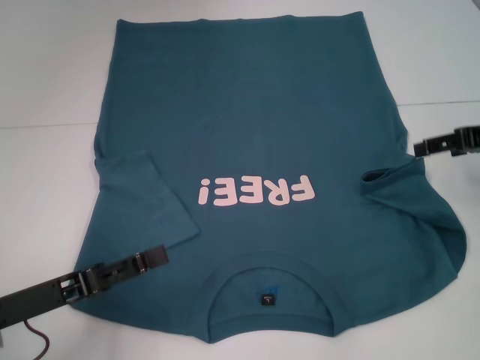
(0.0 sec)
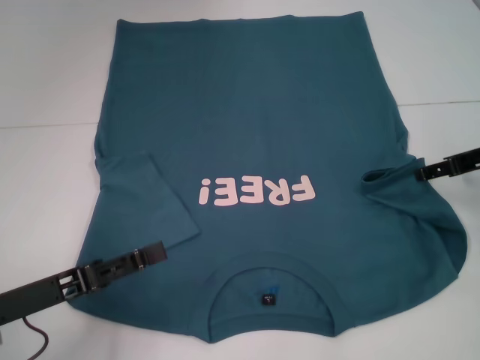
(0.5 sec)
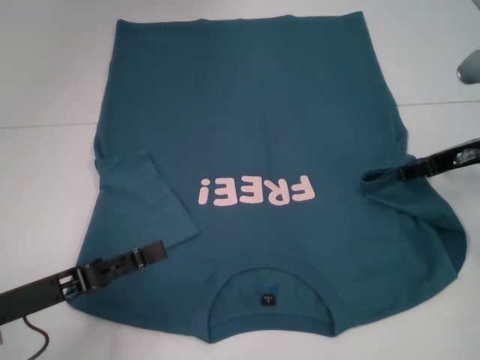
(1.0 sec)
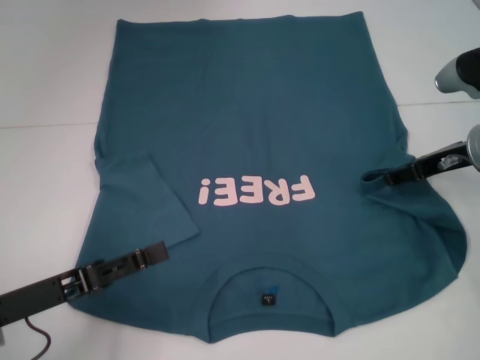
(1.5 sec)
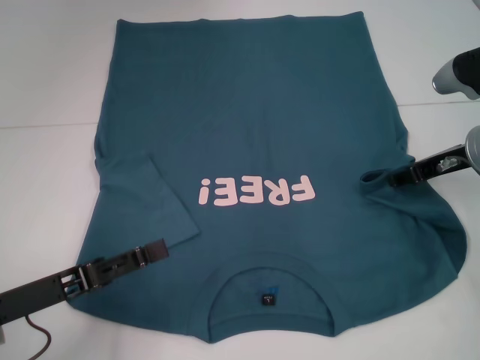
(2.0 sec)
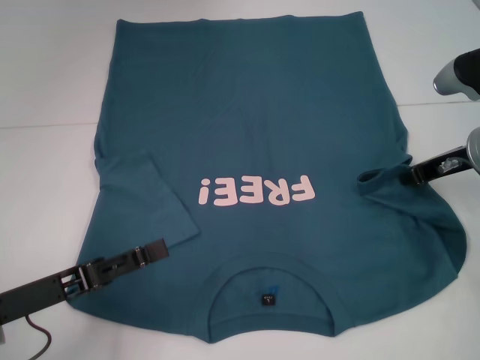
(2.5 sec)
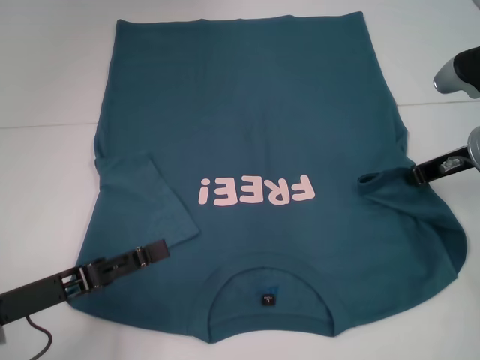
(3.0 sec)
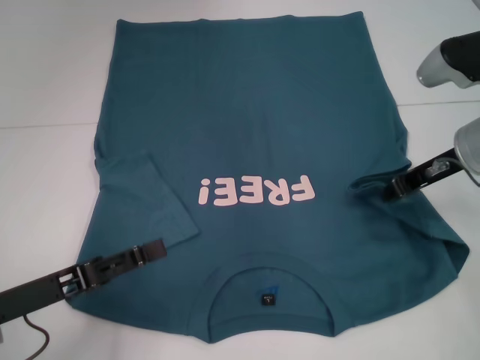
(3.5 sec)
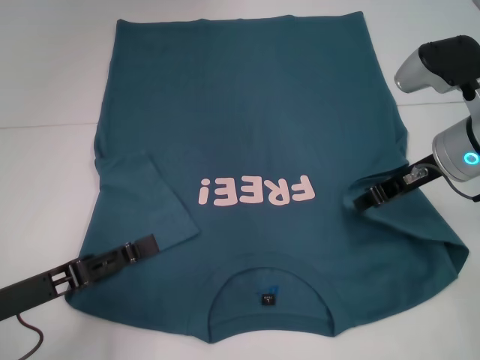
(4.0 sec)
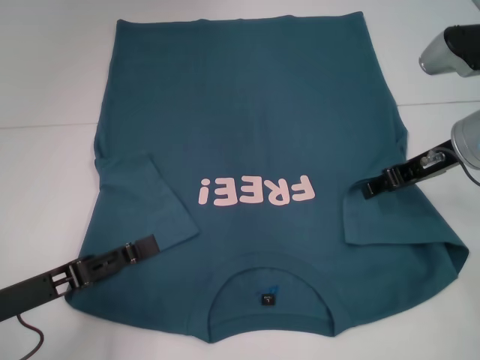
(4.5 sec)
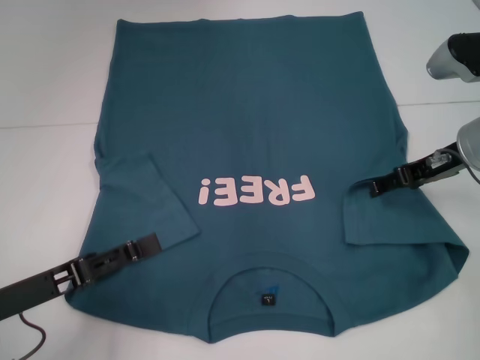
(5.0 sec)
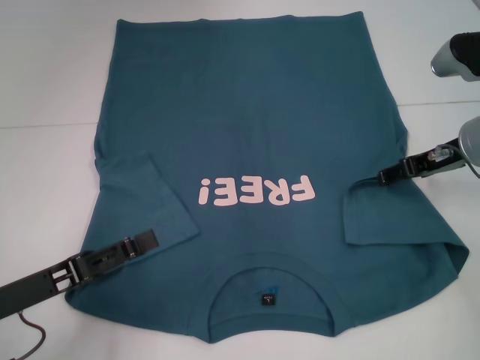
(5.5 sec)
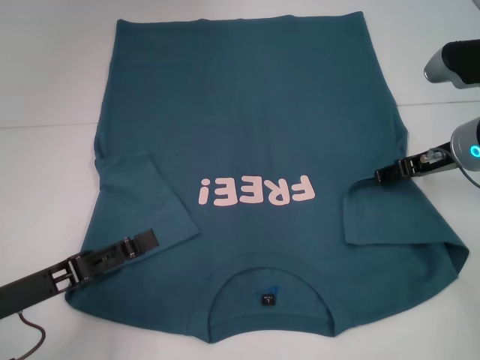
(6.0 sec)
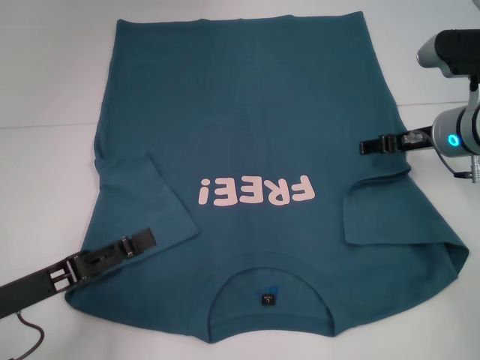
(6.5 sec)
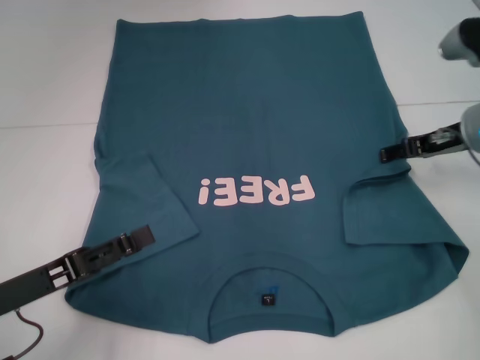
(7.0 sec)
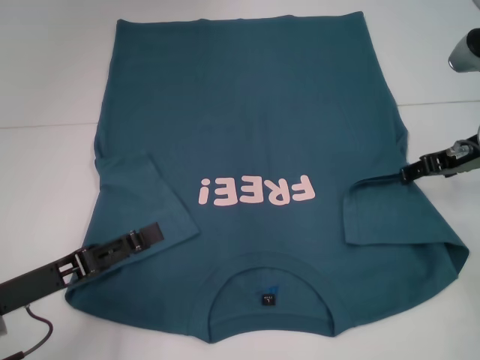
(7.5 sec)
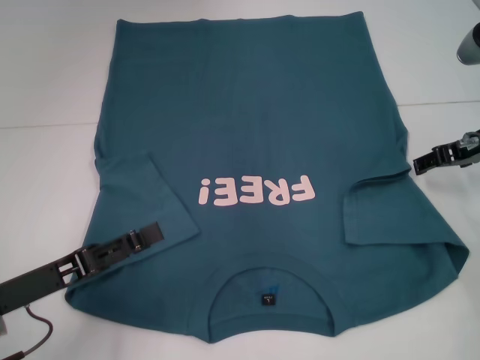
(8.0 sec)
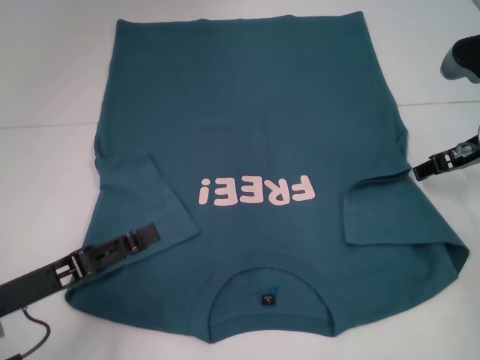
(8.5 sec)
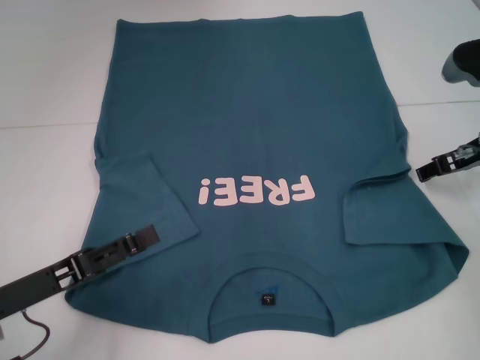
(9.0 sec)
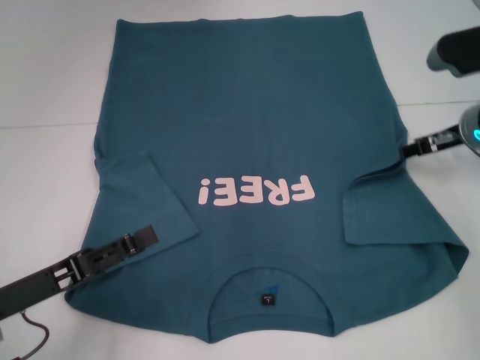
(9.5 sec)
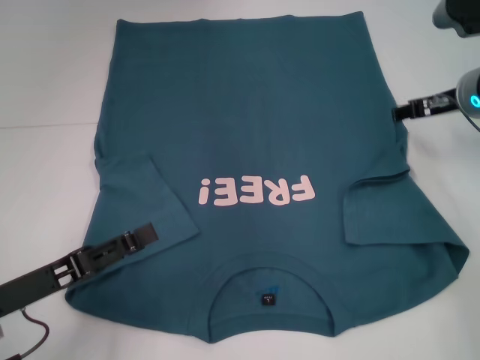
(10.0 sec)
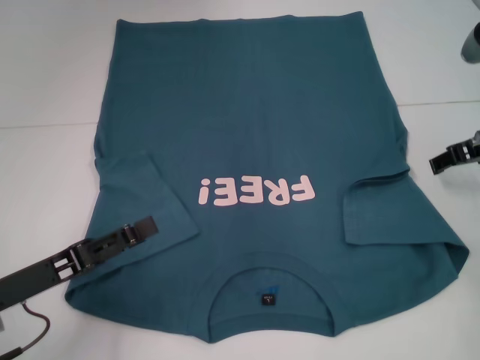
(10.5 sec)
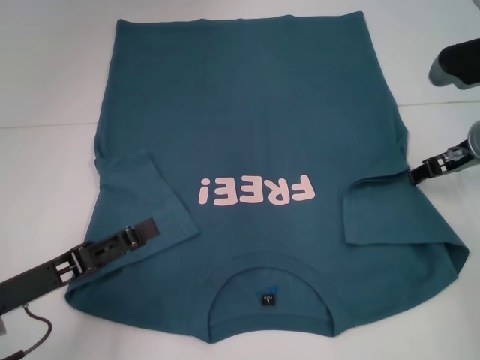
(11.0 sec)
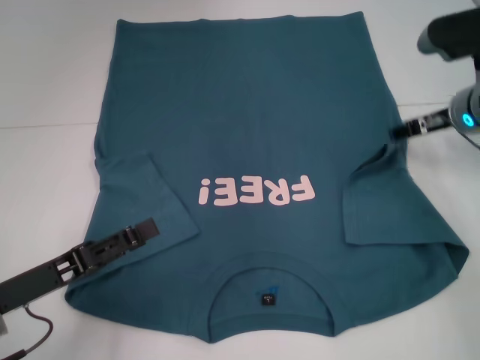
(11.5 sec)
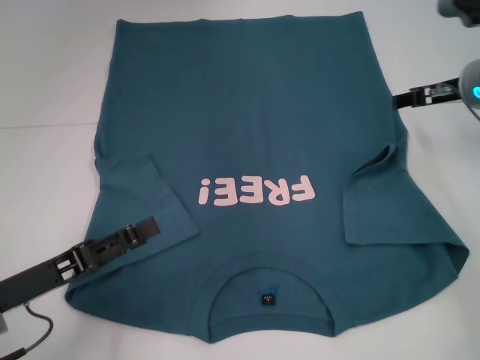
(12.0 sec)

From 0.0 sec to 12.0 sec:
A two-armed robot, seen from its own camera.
From 0.0 sec to 2.0 sec: The right gripper heads to the left, covering some 5 cm.
From 2.0 sec to 4.0 sec: The right gripper shifts by about 5 cm, and closes.
From 4.0 sec to 6.0 sec: The right gripper opens.
From 6.0 sec to 12.0 sec: There are only small adjustments of the grippers.

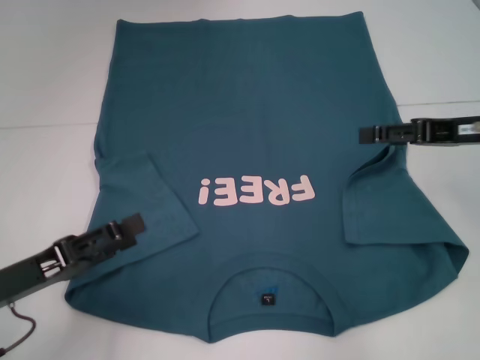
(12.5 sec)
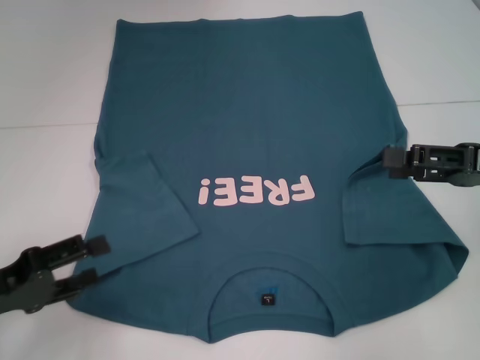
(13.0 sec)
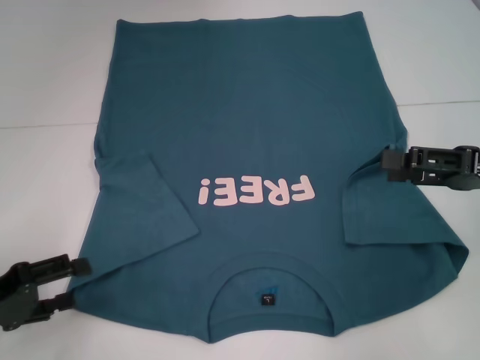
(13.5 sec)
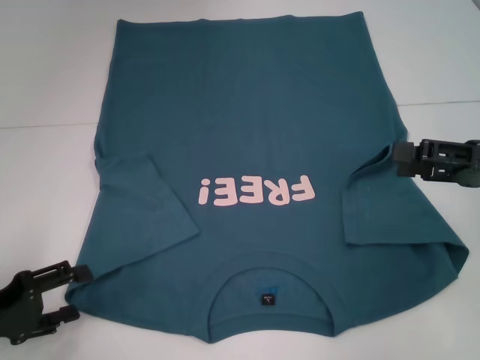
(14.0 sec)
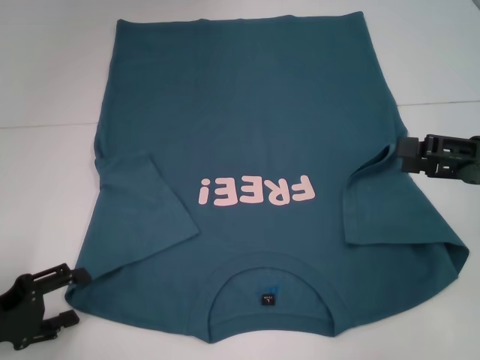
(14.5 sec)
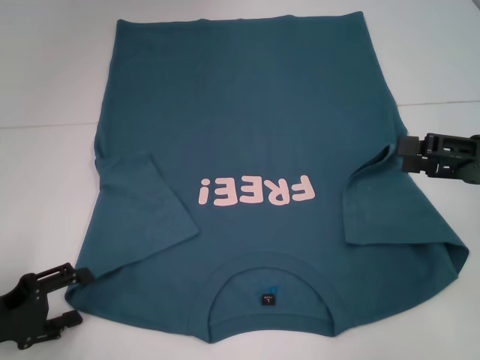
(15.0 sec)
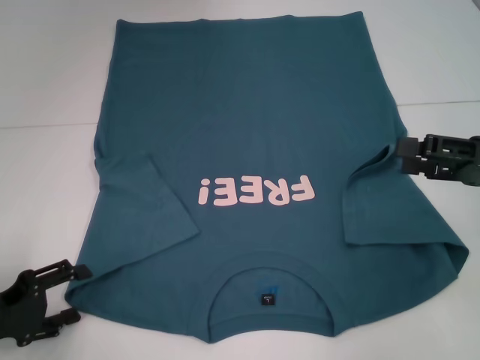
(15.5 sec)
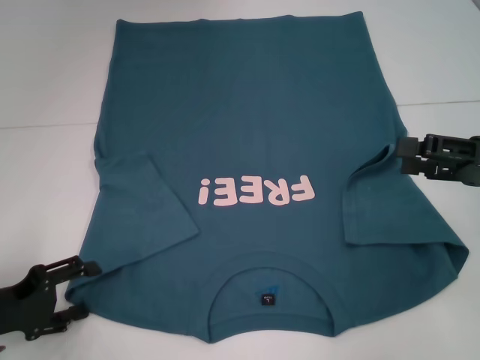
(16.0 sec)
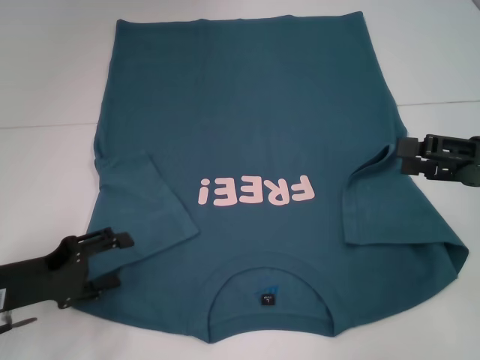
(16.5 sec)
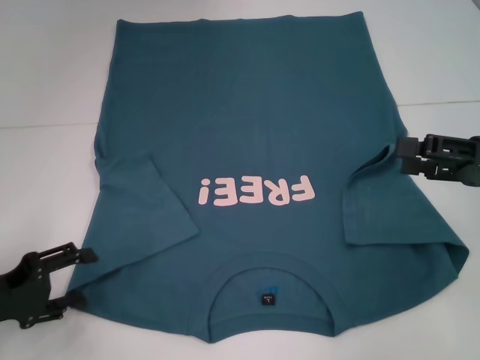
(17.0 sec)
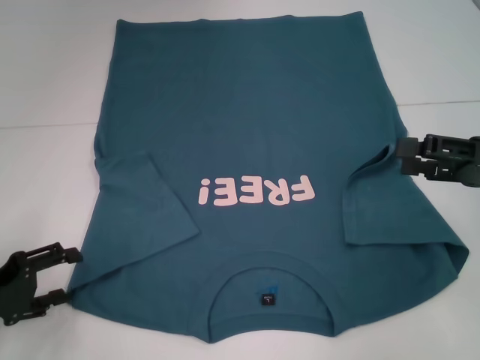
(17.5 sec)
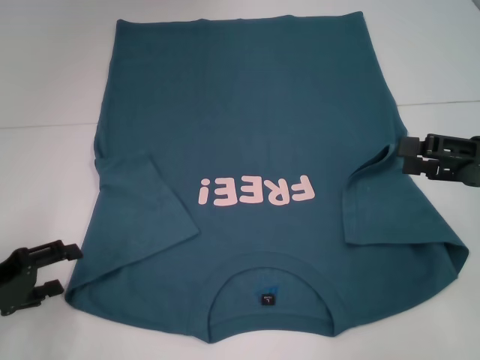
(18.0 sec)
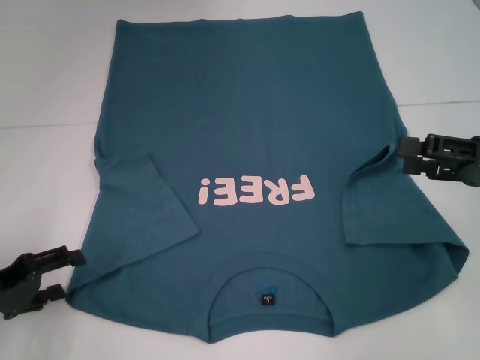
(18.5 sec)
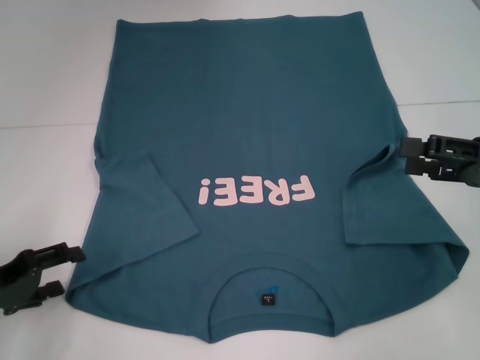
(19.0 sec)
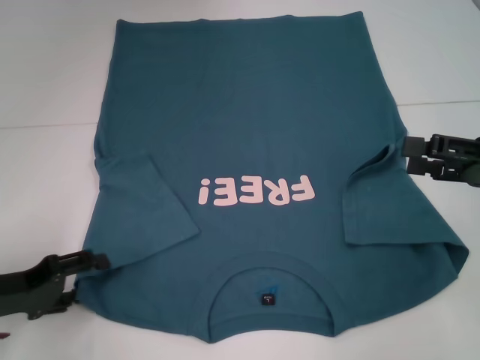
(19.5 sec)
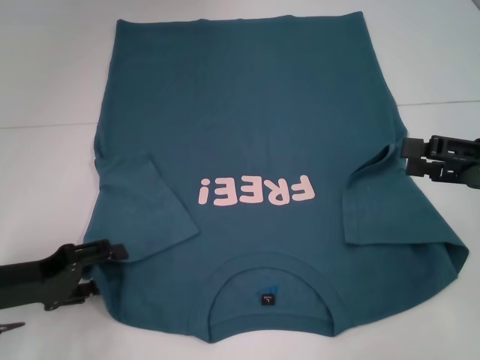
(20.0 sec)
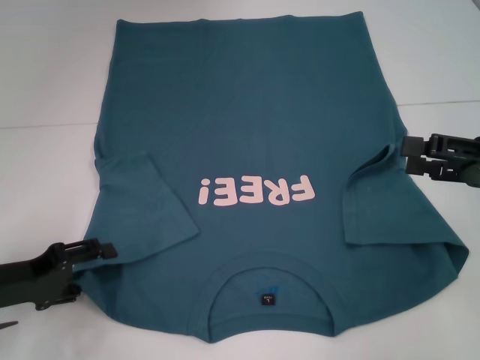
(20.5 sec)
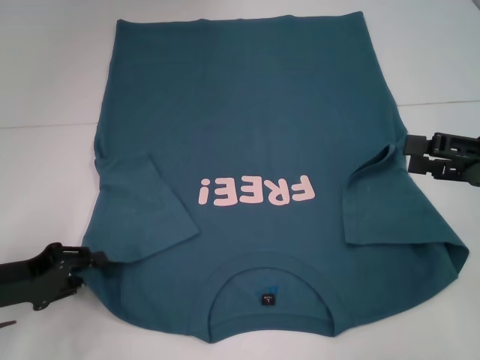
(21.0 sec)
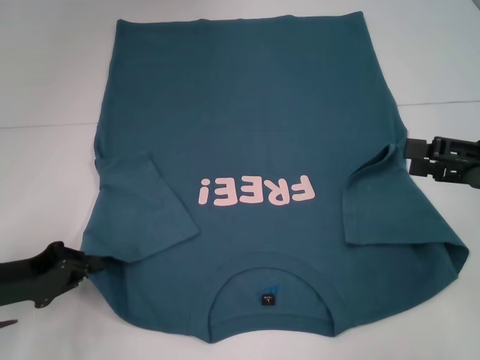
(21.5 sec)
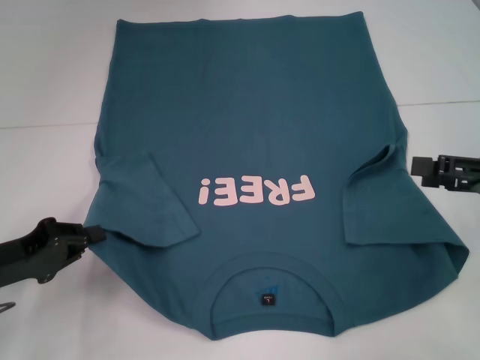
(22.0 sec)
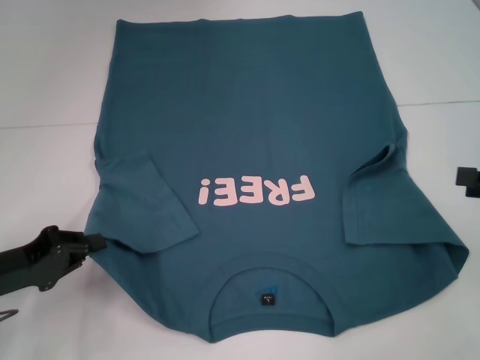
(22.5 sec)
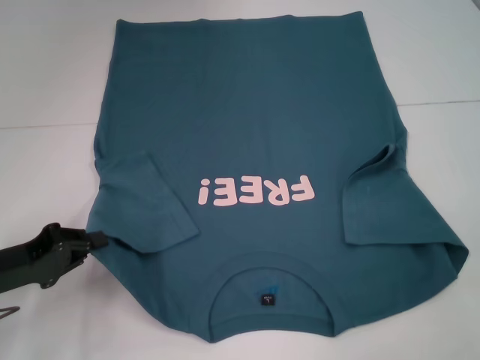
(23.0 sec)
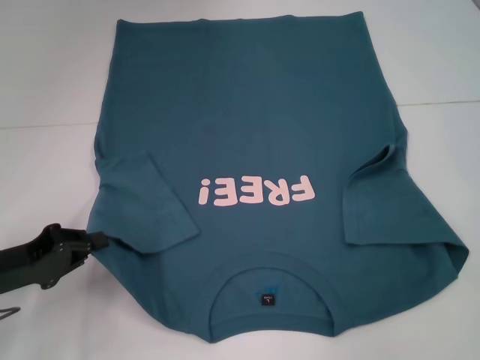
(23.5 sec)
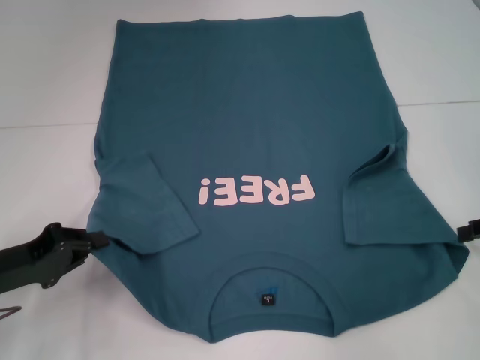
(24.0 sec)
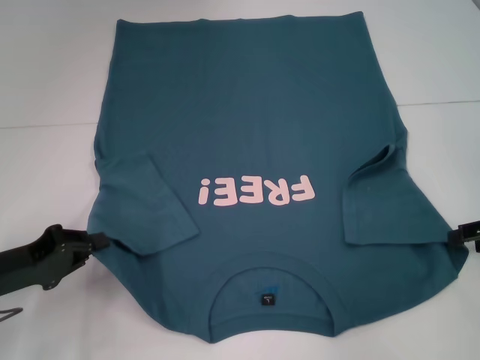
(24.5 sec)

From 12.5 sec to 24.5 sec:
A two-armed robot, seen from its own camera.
Step, from 14.0 sec to 21.5 sec: Grab the bottom left corner with your left hand.
From 12.5 sec to 14.5 sec: The left gripper is displaced to the left by approximately 5 cm, while the right gripper heads backward, covering some 5 cm.
From 14.5 sec to 16.5 sec: The left gripper moves roughly 5 cm.
From 16.5 sec to 20.5 sec: The grippers stay close to where they were, moving slightly.
From 20.5 sec to 22.5 sec: The right gripper is displaced to the right by about 5 cm. Meanwhile the left gripper closes up.
From 22.5 sec to 24.5 sec: The right gripper moves some 5 cm.

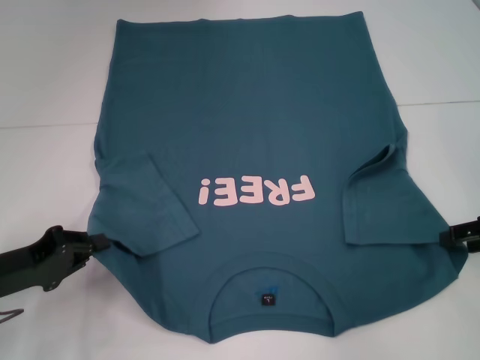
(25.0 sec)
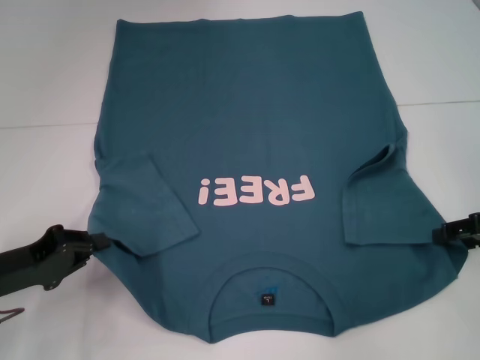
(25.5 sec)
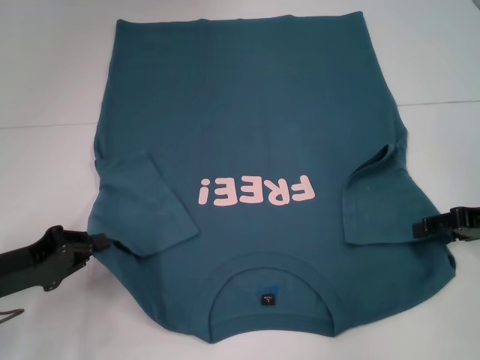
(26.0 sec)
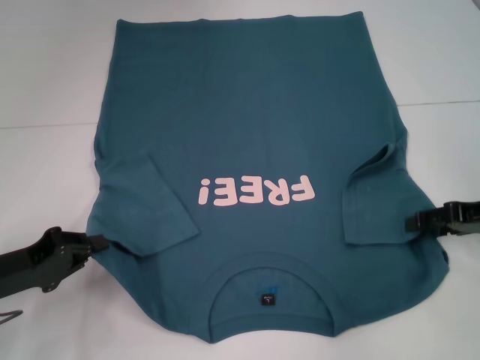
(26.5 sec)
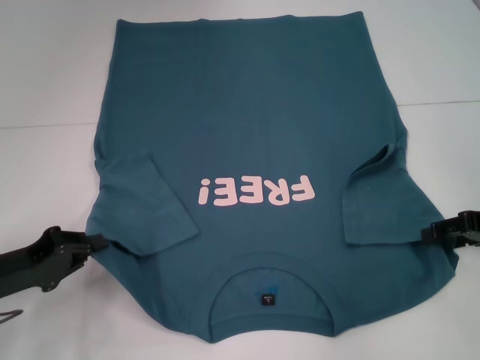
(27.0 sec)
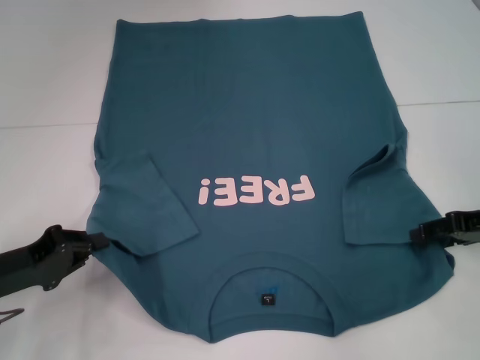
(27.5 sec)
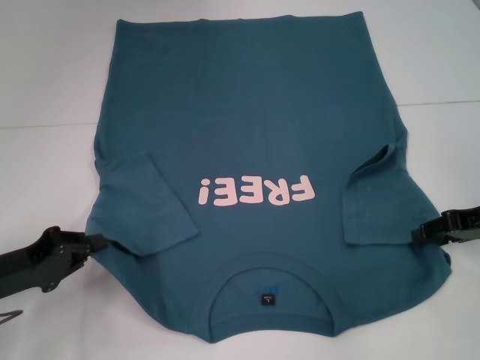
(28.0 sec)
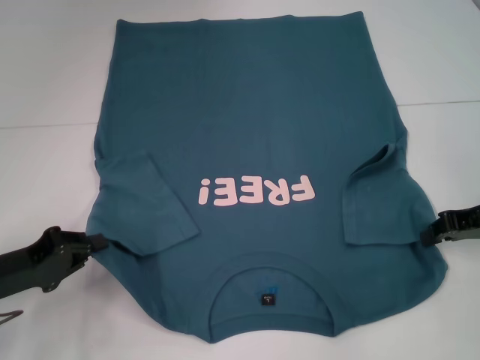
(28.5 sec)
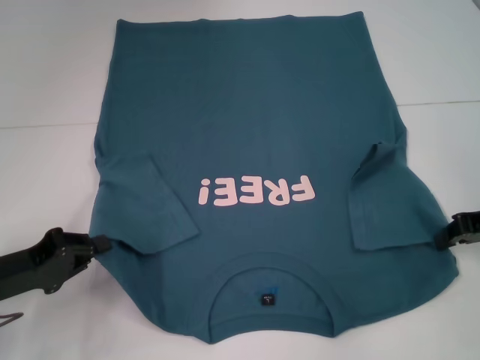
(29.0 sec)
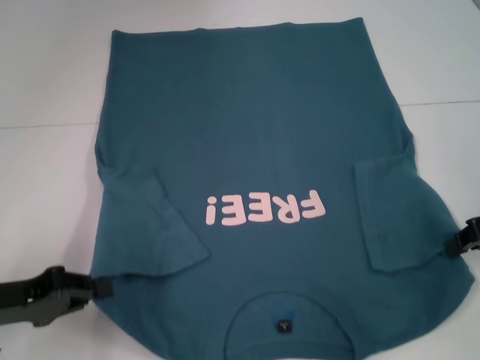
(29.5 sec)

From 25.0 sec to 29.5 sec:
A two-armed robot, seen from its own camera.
Step, from 25.0 sec to 28.5 sec: Grab the bottom right corner with your right hand.
From 25.0 sec to 27.0 sec: There are only small adjustments of the grippers.
From 27.0 sec to 29.5 sec: The right gripper closes.
